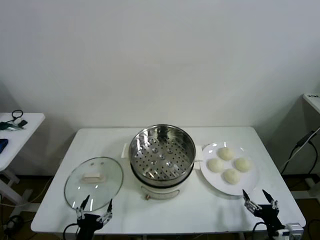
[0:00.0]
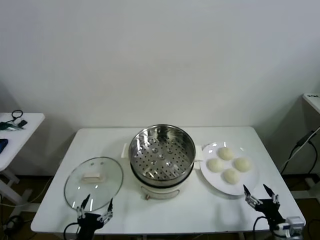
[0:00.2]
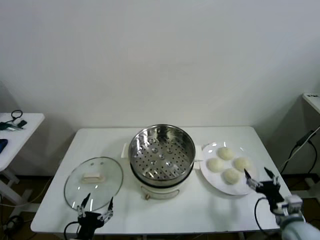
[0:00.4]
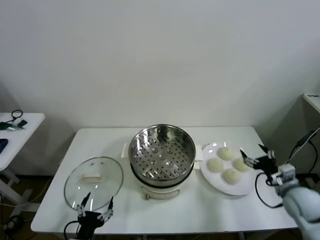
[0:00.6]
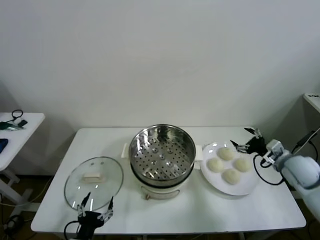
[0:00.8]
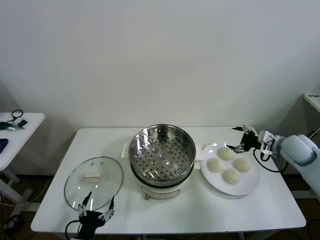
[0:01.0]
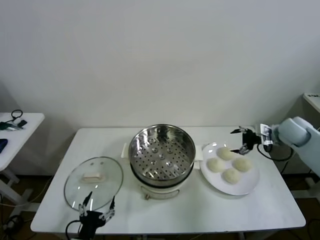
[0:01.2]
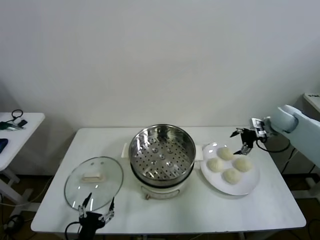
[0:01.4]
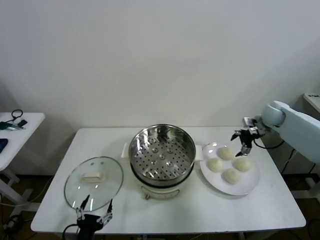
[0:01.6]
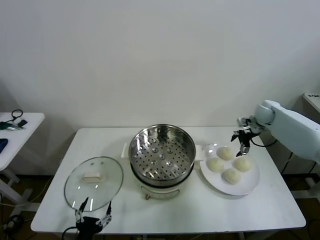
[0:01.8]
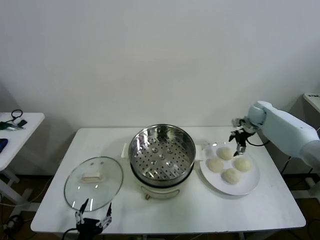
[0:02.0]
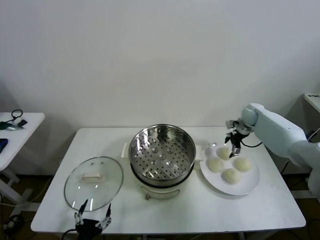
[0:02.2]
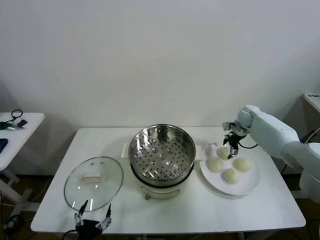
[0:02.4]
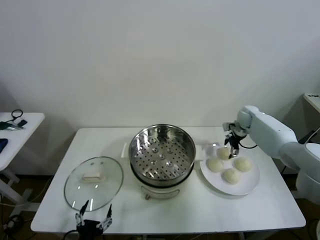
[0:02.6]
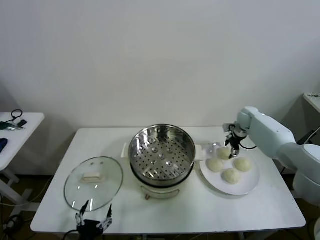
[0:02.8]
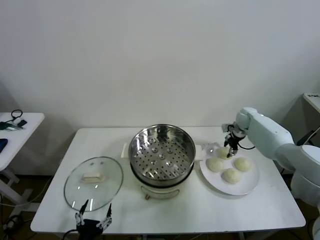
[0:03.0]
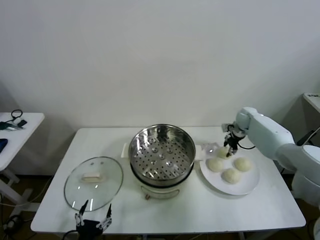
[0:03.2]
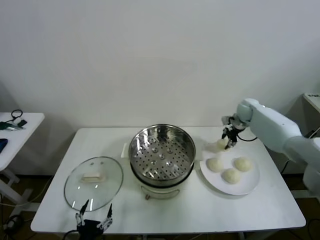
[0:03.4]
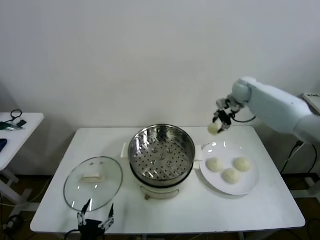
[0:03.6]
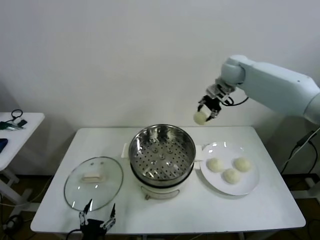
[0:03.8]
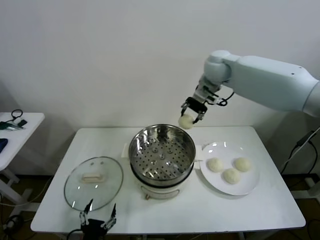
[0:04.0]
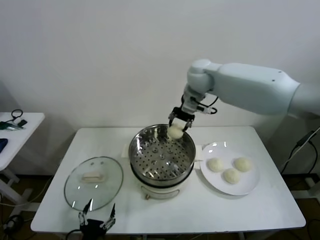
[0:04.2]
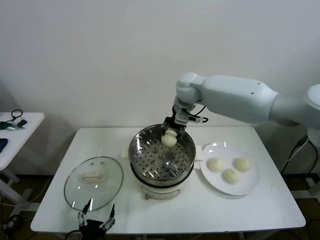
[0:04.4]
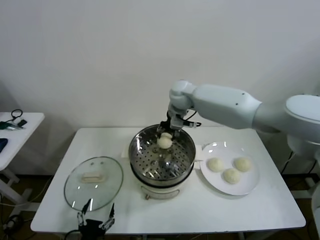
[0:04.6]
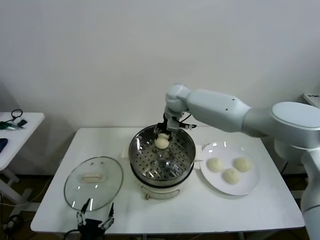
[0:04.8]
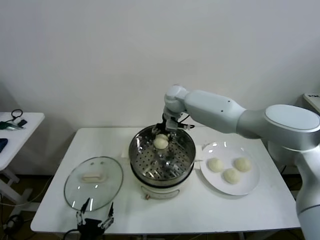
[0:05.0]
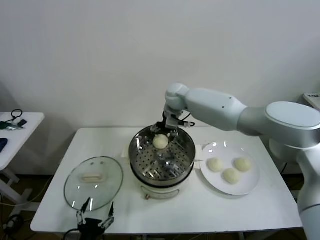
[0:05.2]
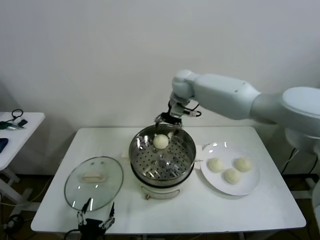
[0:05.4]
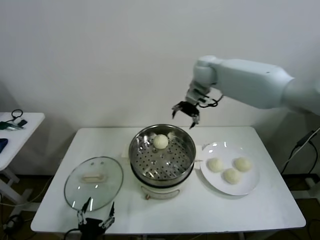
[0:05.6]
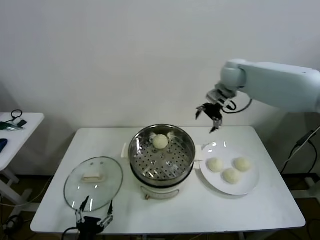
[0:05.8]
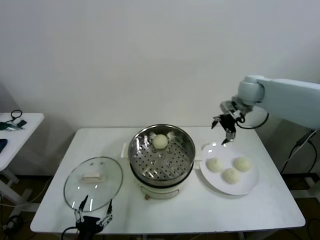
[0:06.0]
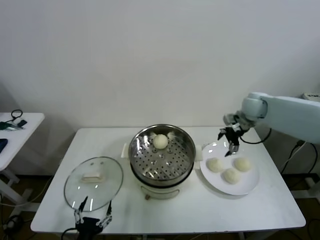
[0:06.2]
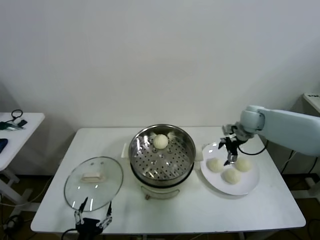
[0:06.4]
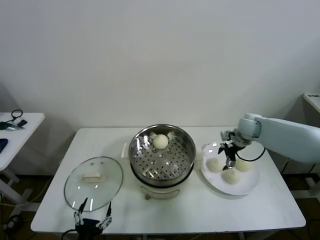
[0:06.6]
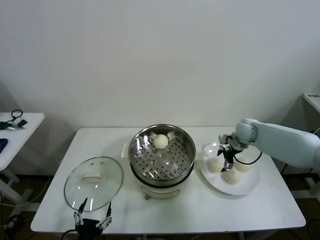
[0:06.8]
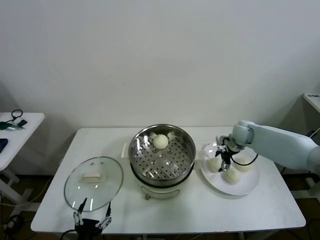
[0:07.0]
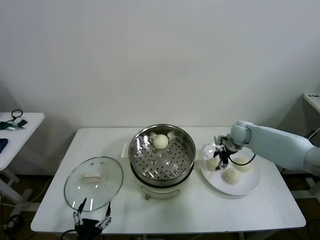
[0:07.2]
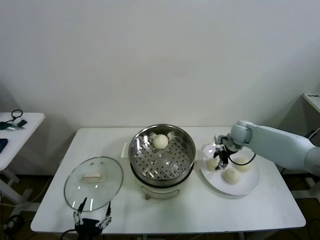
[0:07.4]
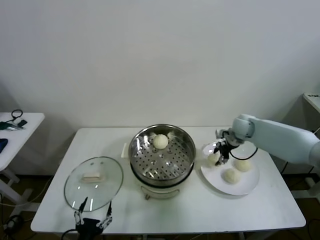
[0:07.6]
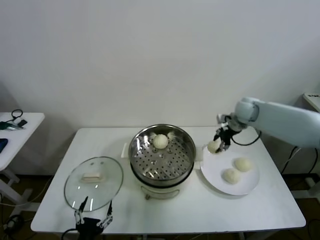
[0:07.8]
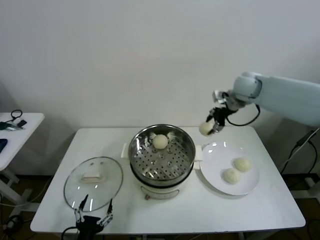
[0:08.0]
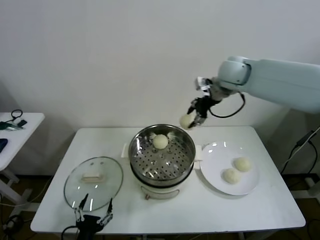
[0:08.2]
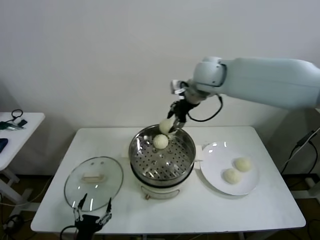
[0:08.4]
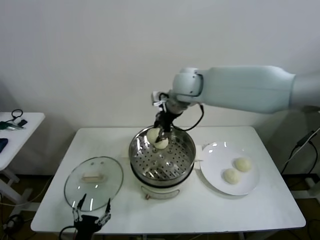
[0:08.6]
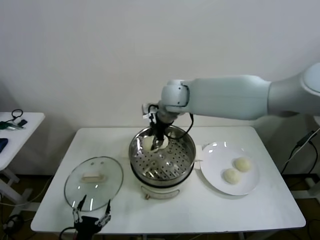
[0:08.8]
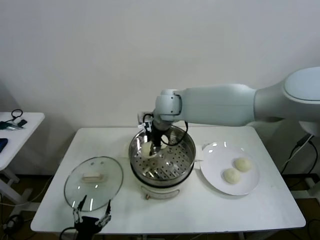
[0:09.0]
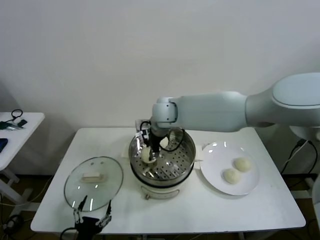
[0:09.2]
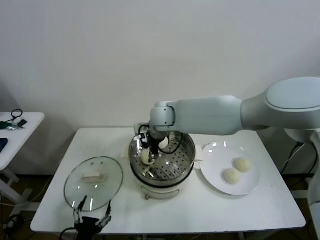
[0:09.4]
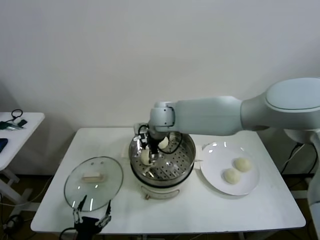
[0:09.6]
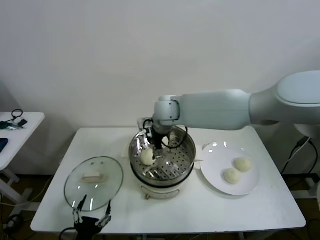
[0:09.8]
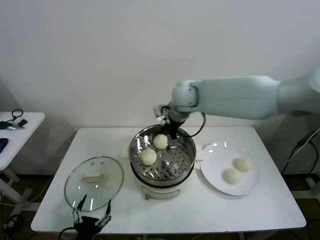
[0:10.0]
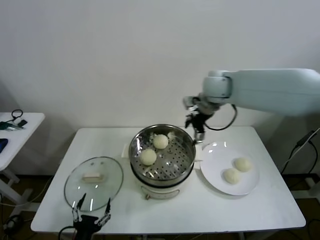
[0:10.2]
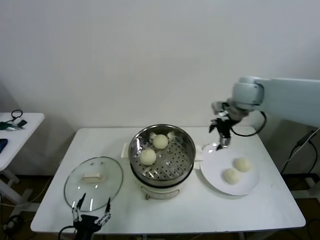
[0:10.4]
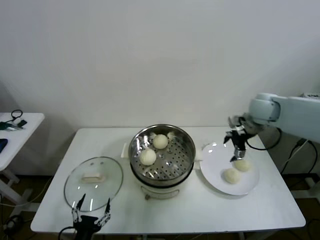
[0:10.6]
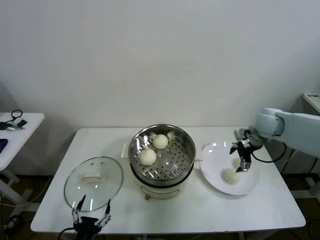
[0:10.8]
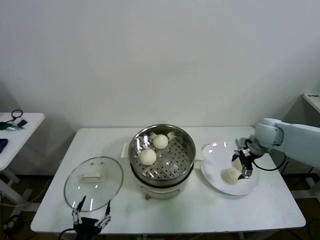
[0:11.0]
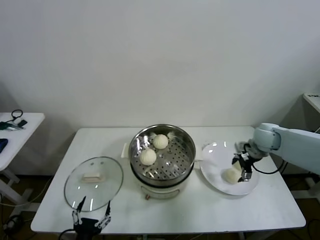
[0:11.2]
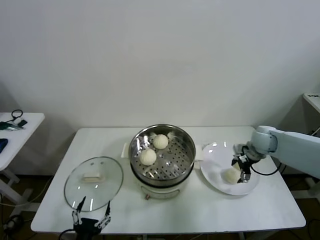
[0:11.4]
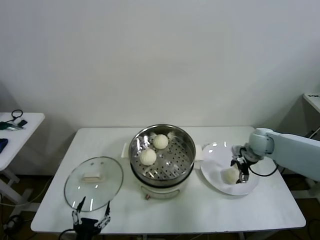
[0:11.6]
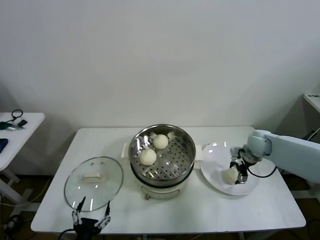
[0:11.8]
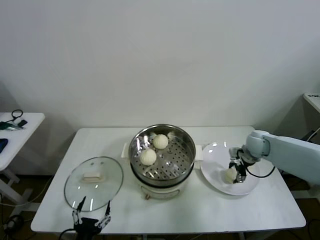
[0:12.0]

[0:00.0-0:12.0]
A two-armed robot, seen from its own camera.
Task of the whole recording: take steamed baozi put them in steamer then cover it.
Step, 0:00.0 to 0:03.2: Grasp the baozi in the plate with right gripper.
Step, 0:03.4 to 0:05.0: Place the baozi on the steamer with right gripper.
Step, 0:05.2 to 0:07.4: Grasp the baozi in the plate with right gripper.
Step, 0:07.6 to 0:09.8: Place the baozi on the steamer with right gripper.
0:01.6 to 0:03.0: The right gripper is displaced downward by some 5 cm, and closes.
0:03.0 to 0:04.4: The right gripper goes some 35 cm to the left and upward.
0:04.4 to 0:06.0: The right gripper shifts some 25 cm to the right, and opens up.
0:06.0 to 0:07.6: The right gripper travels downward by about 10 cm, and closes up.
0:07.6 to 0:09.0: The right gripper is displaced to the left by approximately 30 cm.
0:09.0 to 0:10.4: The right gripper moves to the right, approximately 25 cm, and opens.
0:10.4 to 0:12.0: The right gripper travels downward by roughly 20 cm, and closes its fingers.

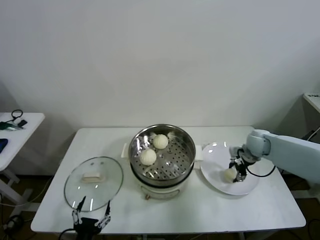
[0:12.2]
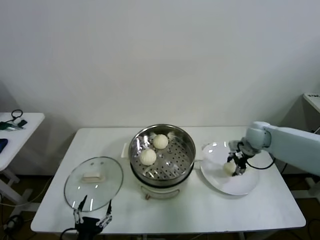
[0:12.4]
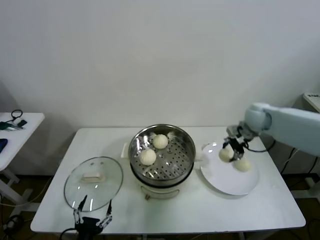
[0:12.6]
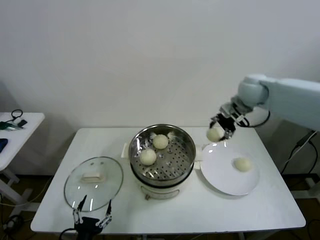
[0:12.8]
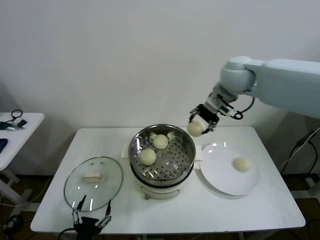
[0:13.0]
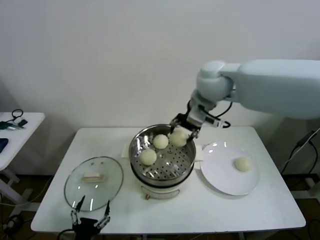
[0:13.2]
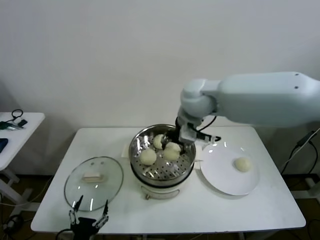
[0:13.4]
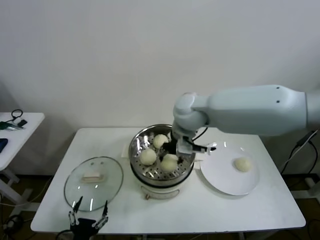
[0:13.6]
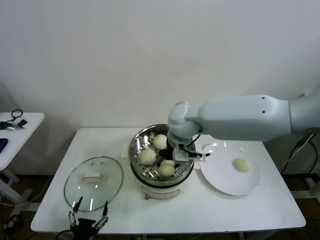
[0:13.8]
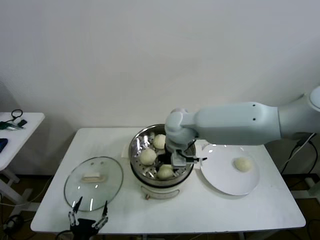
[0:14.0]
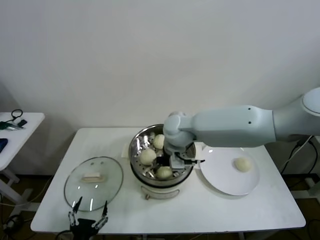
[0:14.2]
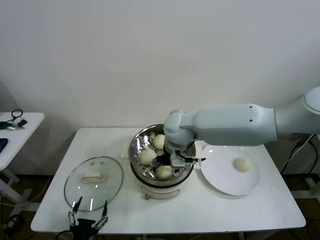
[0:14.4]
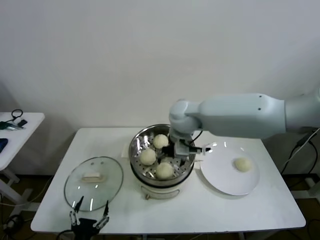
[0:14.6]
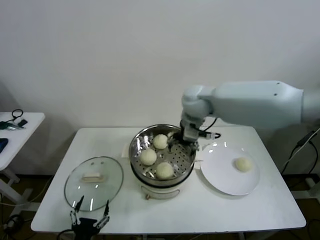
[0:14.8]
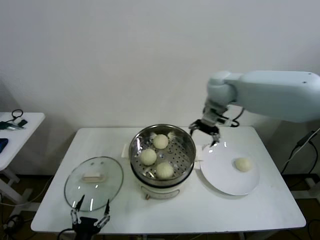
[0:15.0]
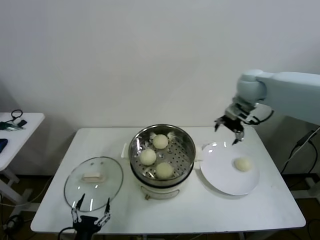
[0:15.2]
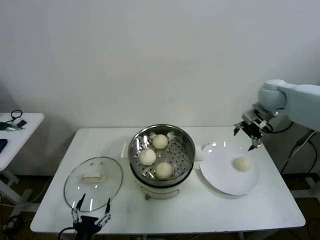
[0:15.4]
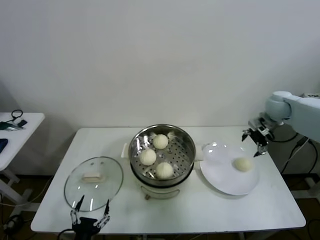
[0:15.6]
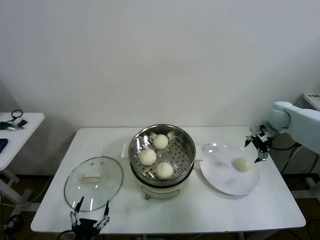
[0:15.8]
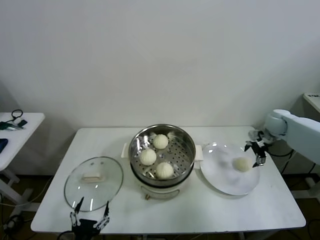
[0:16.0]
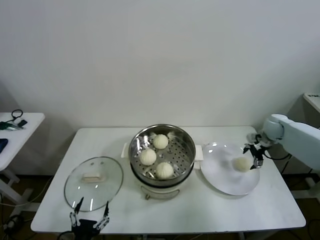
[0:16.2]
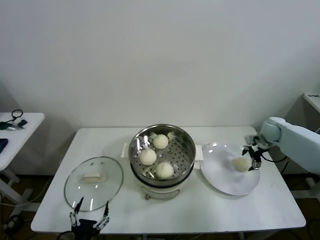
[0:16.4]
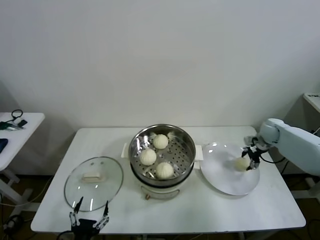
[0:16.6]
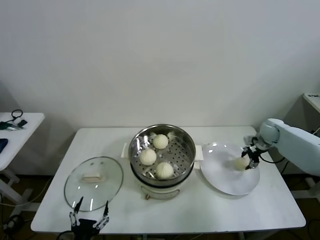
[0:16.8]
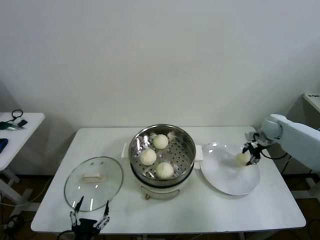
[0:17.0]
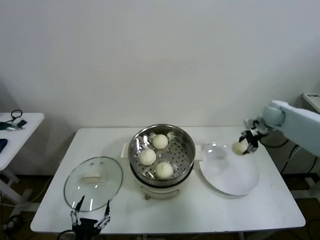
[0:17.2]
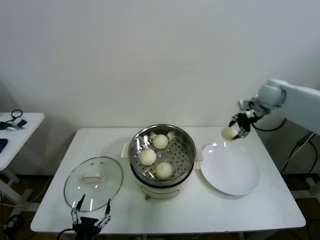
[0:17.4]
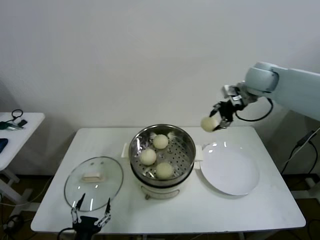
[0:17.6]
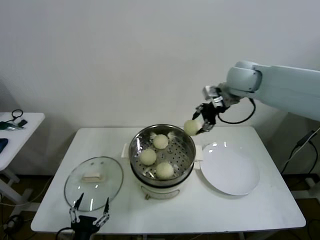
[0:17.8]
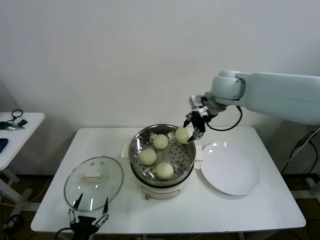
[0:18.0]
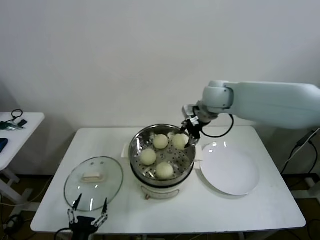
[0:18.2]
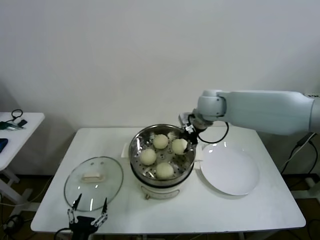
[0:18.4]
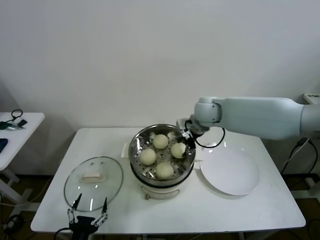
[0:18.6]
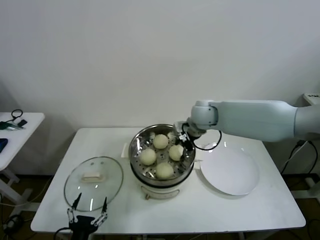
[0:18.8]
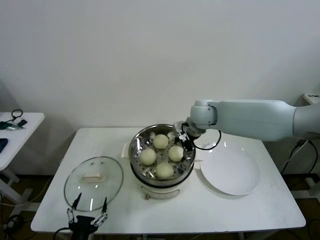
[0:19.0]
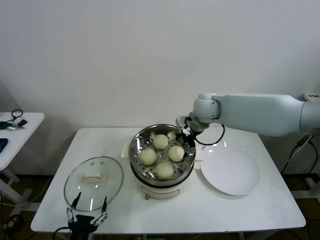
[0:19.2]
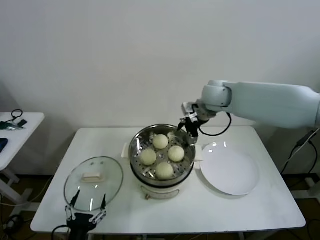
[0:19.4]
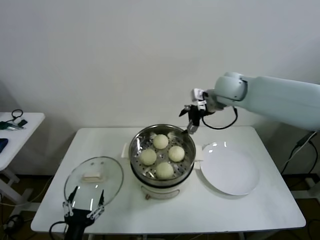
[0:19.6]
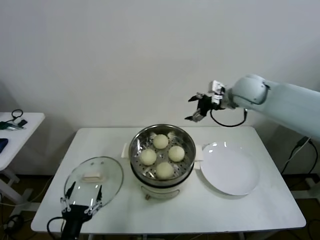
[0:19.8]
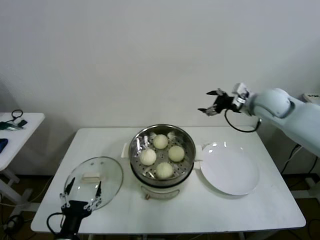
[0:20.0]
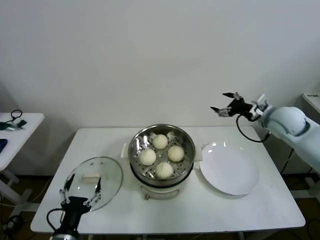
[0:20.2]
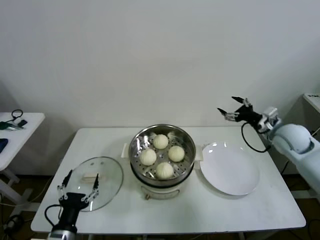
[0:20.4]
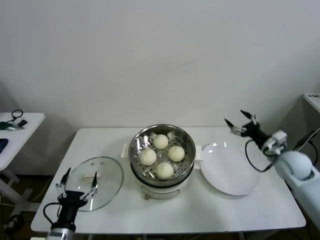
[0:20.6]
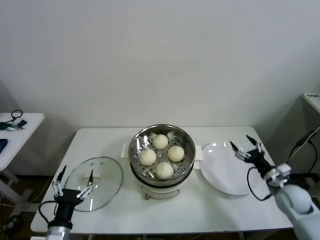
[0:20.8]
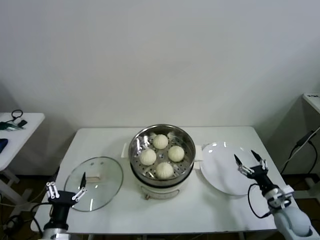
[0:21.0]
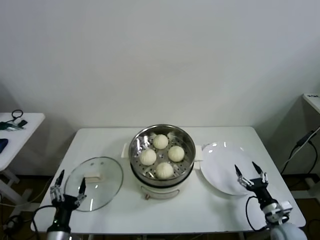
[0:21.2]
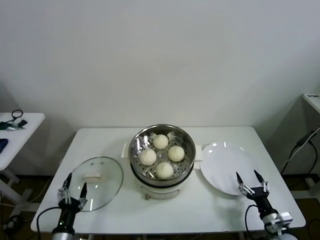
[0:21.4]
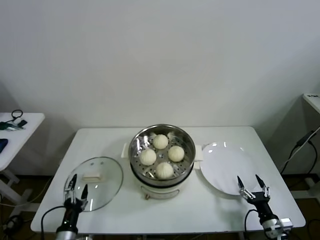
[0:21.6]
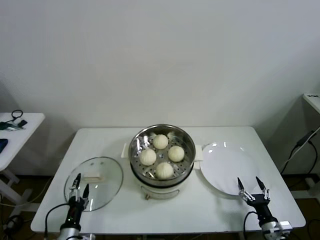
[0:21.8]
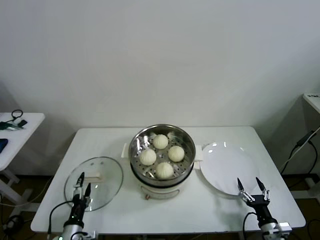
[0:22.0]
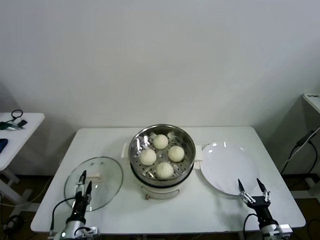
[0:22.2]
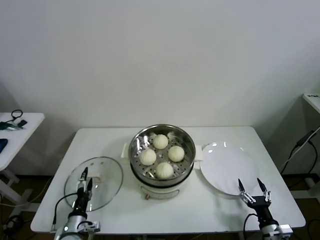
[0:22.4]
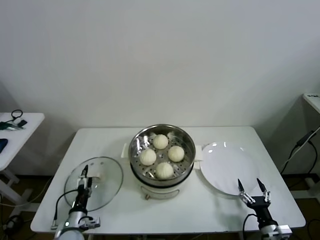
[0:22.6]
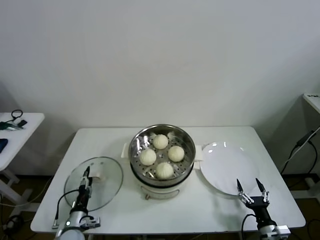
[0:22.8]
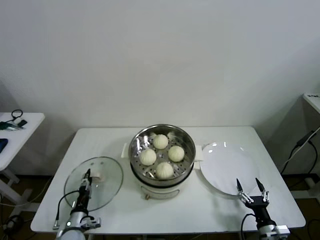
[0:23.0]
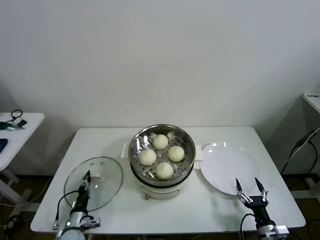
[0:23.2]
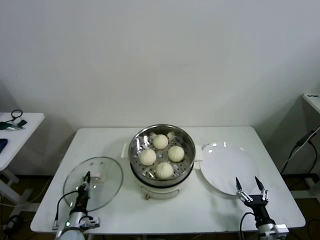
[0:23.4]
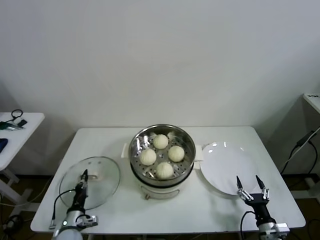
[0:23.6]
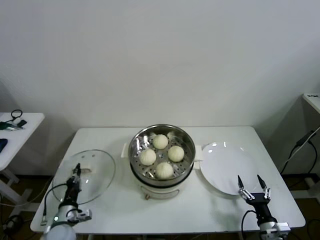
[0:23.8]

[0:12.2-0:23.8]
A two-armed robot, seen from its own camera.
Task of the whole recording: take steamed baozi put them in steamer then cover it.
Step, 0:12.4 to 0:14.4: Place the baozi on the steamer with right gripper.
Step, 0:14.6 to 0:17.0: Grasp the baozi in the plate with right gripper.
Step, 0:17.2 to 0:19.0: Place the baozi on the steamer with right gripper.
Step, 0:19.4 to 0:23.4: Grasp the pot lid with left gripper.
0:12.2 to 0:13.6: The right gripper travels to the left and upward by some 35 cm.
0:13.6 to 0:15.0: The right gripper moves to the right and forward, about 15 cm, and opens.
0:15.0 to 0:16.6: The right gripper shifts roughly 35 cm to the right and downward, and closes its fingers.
0:16.6 to 0:18.0: The right gripper goes approximately 35 cm to the left and upward.
0:18.0 to 0:19.4: The right gripper opens up.
0:19.4 to 0:21.0: The left gripper goes roughly 10 cm to the left and forward, while the right gripper is displaced downward, to the right and backward by some 50 cm.
0:21.0 to 0:22.4: The right gripper shifts about 15 cm backward and downward, while the left gripper is displaced downward and forward by approximately 10 cm.
0:22.4 to 0:23.8: The left gripper closes up.
